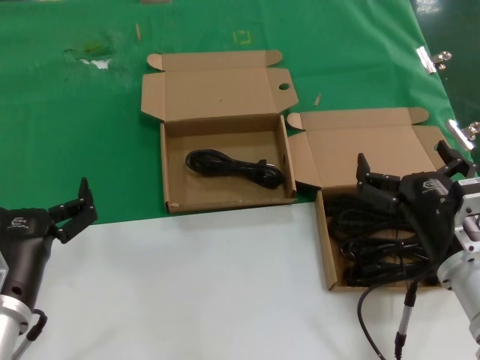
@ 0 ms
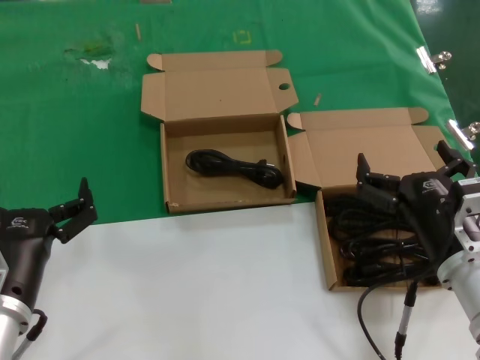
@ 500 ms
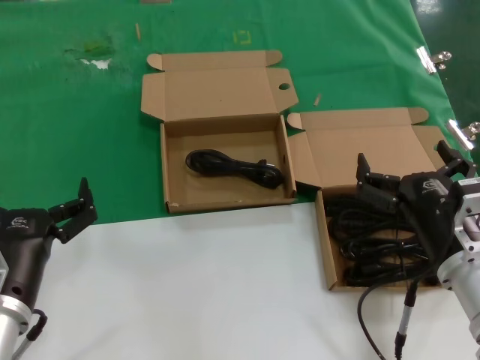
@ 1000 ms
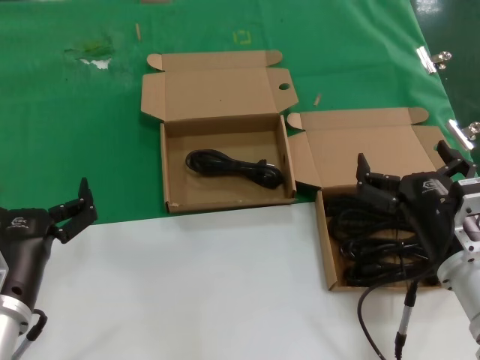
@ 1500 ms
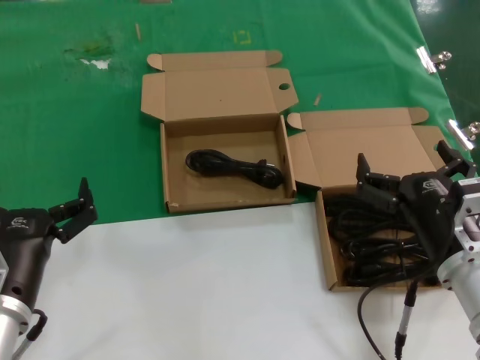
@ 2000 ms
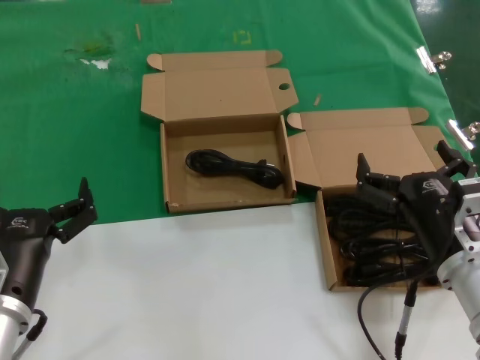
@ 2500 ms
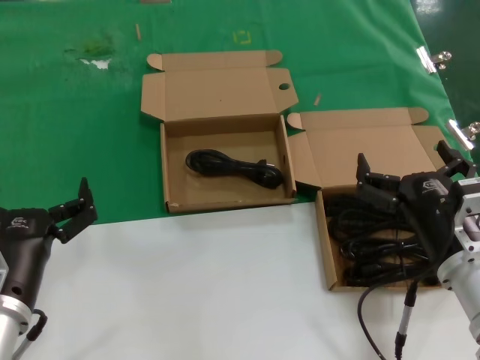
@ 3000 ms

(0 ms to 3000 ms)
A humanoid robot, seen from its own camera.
Task of the whole recording: take the parts from the box containing them and put them into an empty box.
0 ms - 3000 ms: Neither hand changes place.

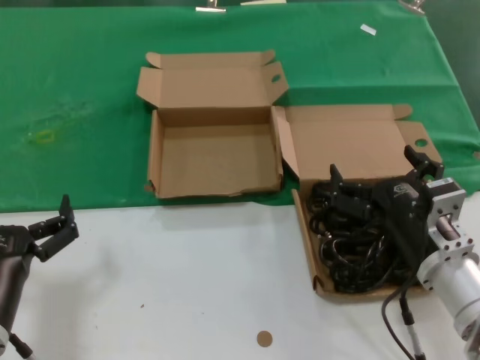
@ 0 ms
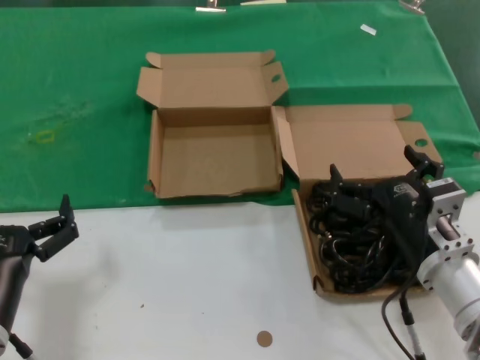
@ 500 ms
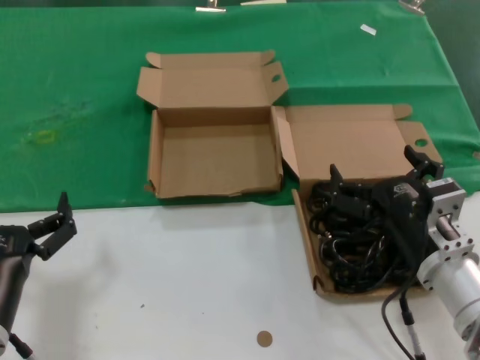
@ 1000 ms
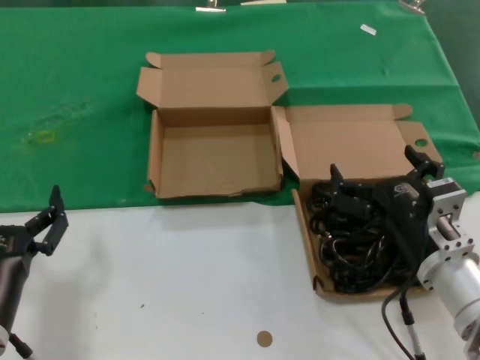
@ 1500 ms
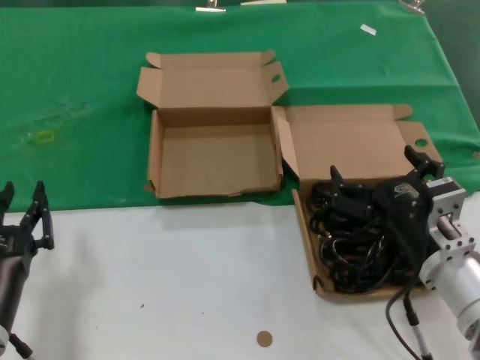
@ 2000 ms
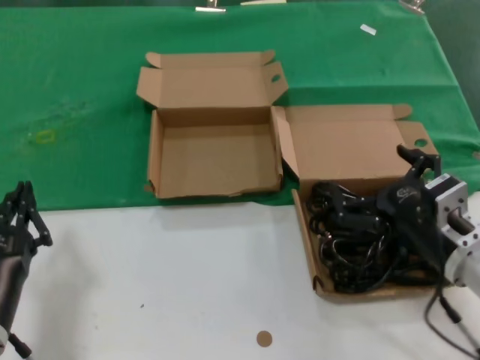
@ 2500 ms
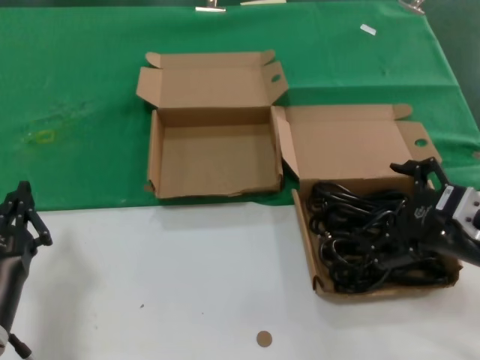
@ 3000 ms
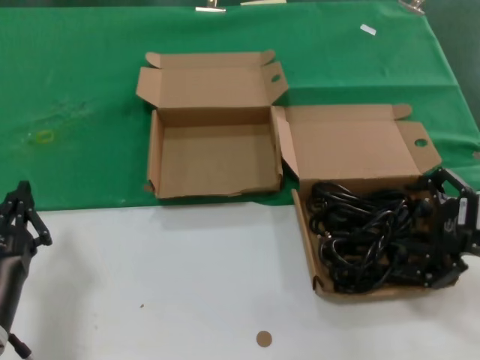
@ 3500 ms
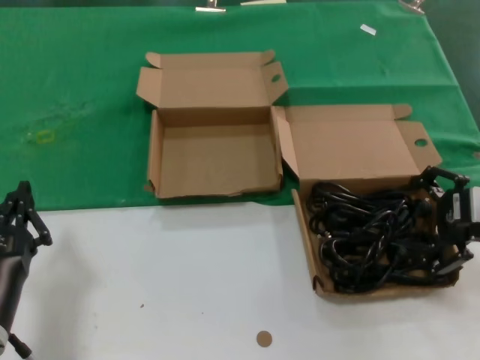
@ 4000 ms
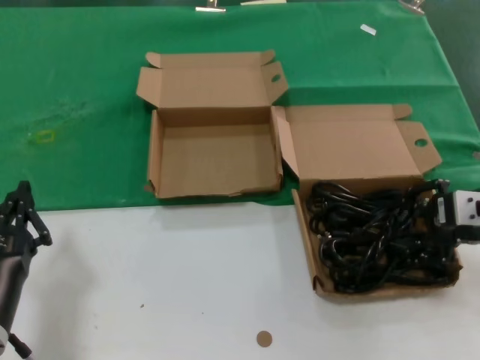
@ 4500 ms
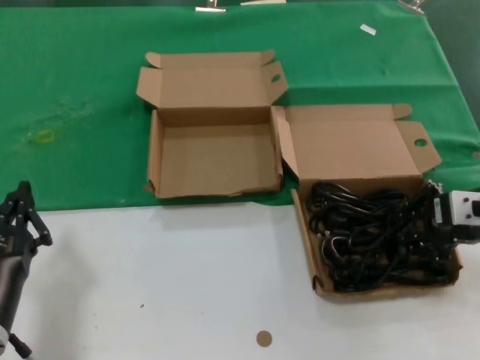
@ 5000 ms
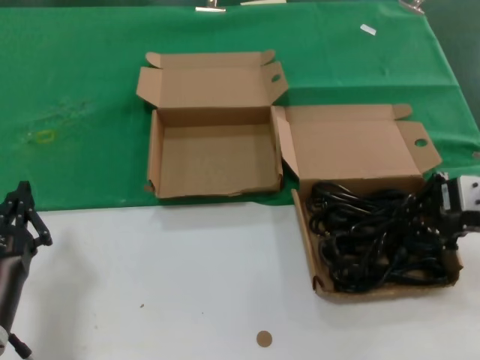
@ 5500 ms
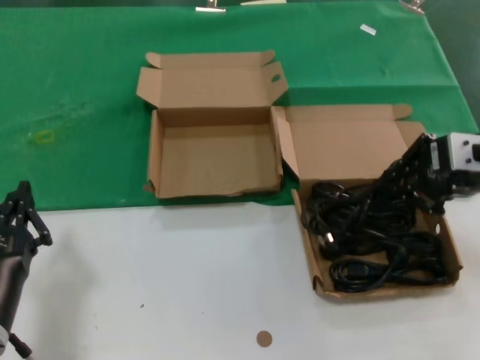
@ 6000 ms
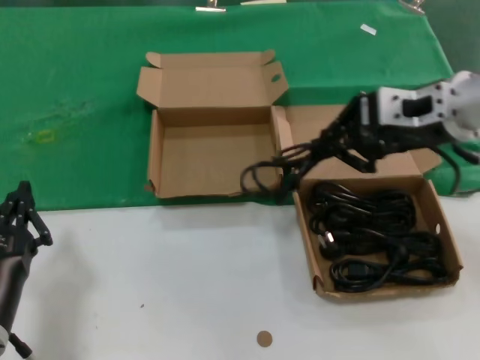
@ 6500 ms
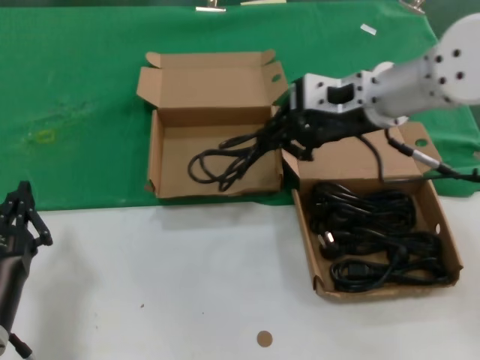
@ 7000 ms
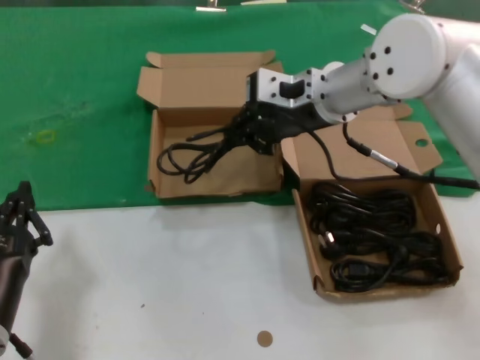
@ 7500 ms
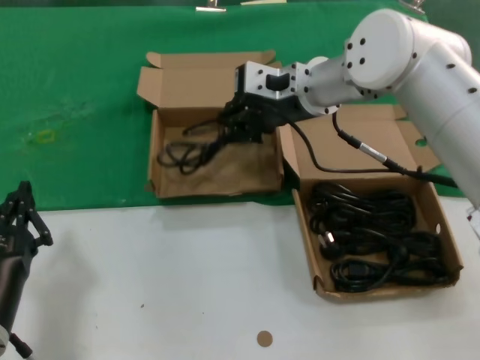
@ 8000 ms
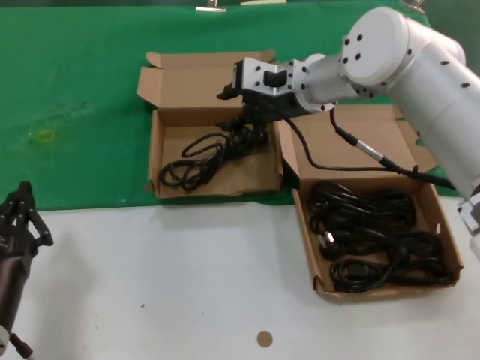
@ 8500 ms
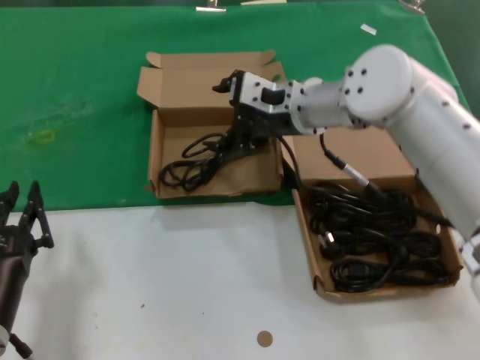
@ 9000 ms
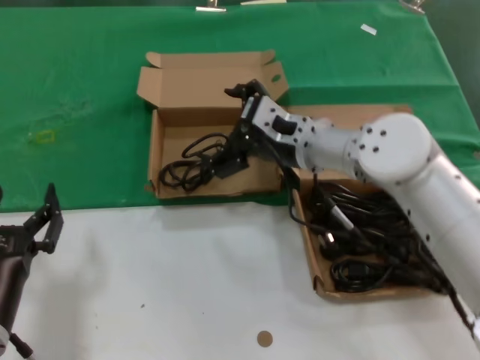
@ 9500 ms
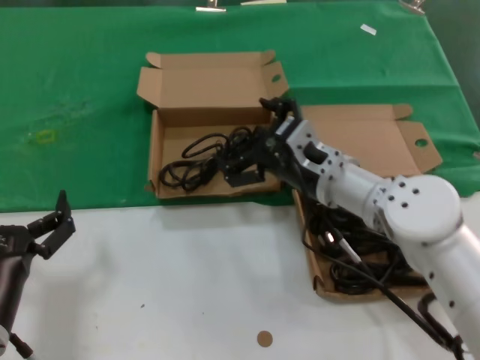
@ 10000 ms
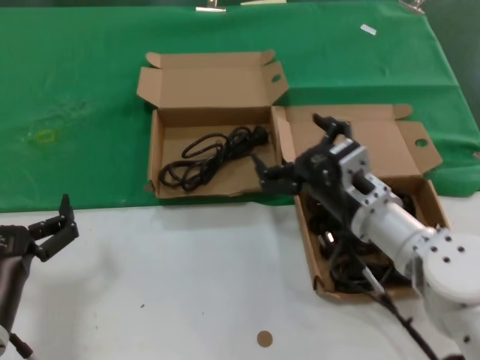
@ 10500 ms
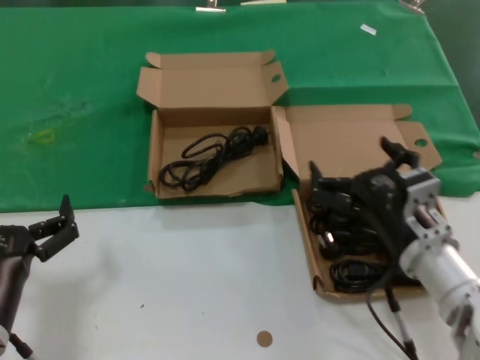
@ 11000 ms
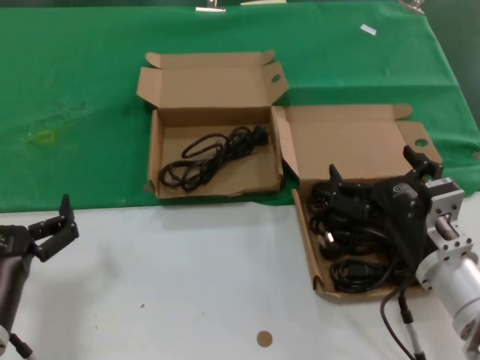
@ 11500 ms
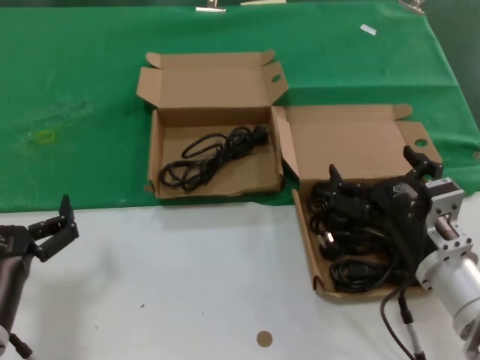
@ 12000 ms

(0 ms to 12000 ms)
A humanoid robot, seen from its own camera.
Task of the whole recording: take the parts from the box containing them and put them into an empty box.
Step, 0 ms - 4500 ms: Grasp the data cable.
Step, 5000 ms - 8000 ms: Place the data cable in the another box.
0 ms - 2000 ms: Both hands stay put.
2000 ms - 4000 ms: The right hand travels upward and to the right by about 20 cm.
4000 ms - 6000 ms: The right hand shifts roughly 5 cm upward.
6000 ms - 8000 ms: The right hand is displaced to the left and forward by roughly 25 cm.
8000 ms - 10000 ms: The right hand travels downward and backward by some 15 cm.
10000 ms - 12000 ms: The right hand travels backward, to the right and downward by approximately 15 cm.

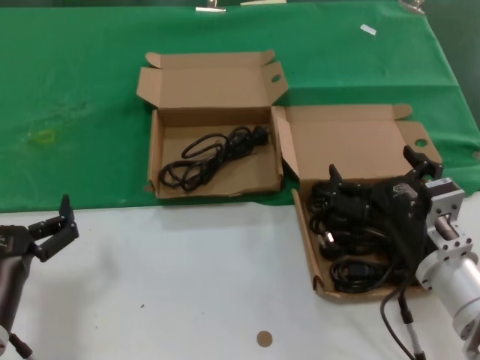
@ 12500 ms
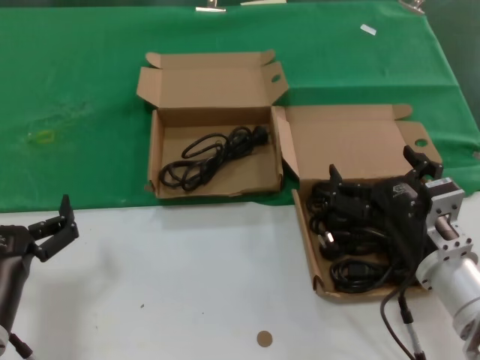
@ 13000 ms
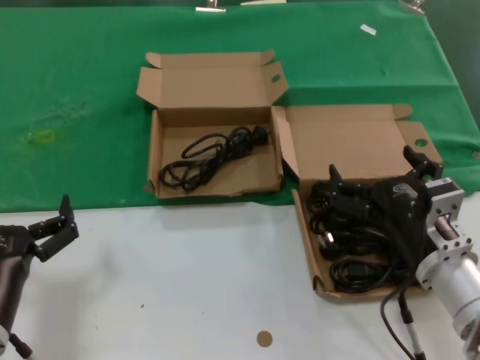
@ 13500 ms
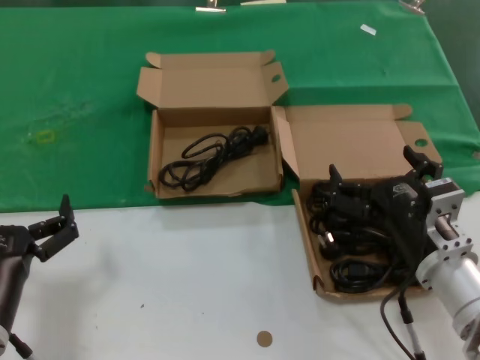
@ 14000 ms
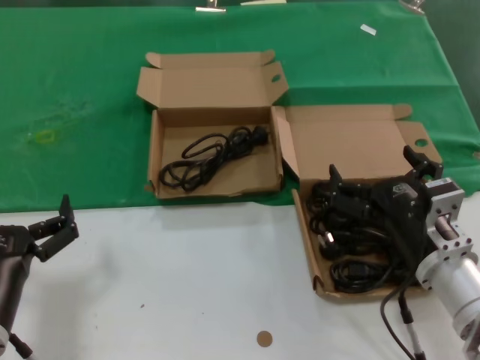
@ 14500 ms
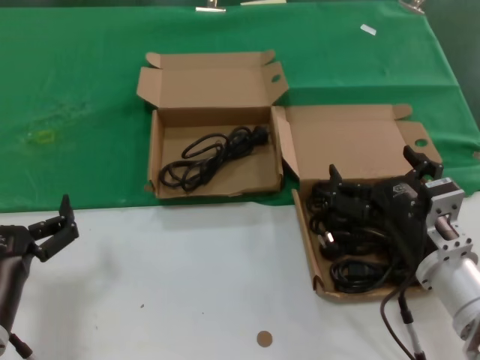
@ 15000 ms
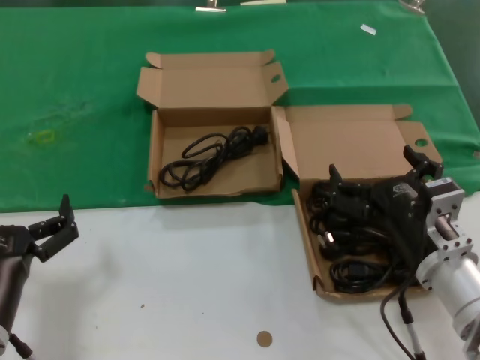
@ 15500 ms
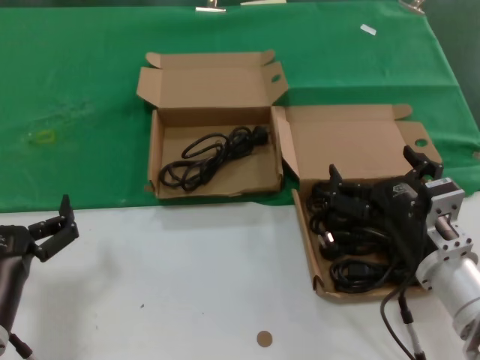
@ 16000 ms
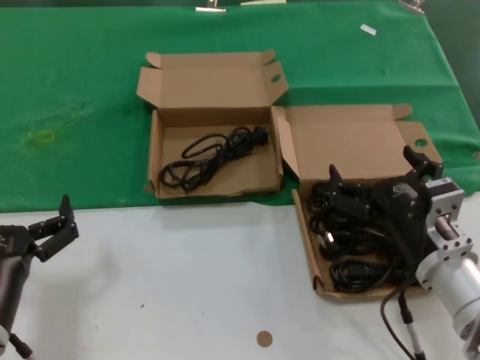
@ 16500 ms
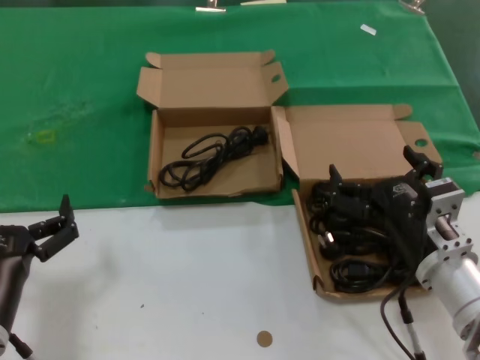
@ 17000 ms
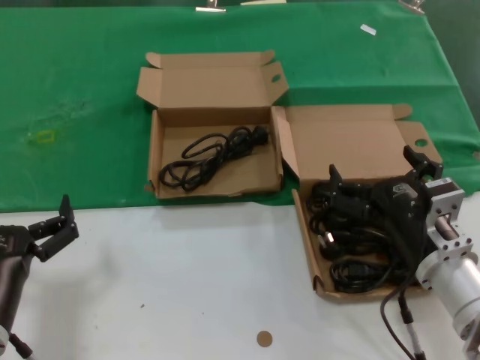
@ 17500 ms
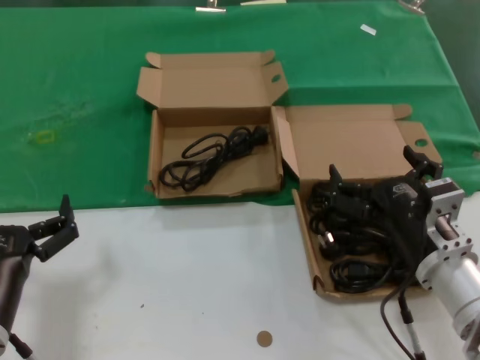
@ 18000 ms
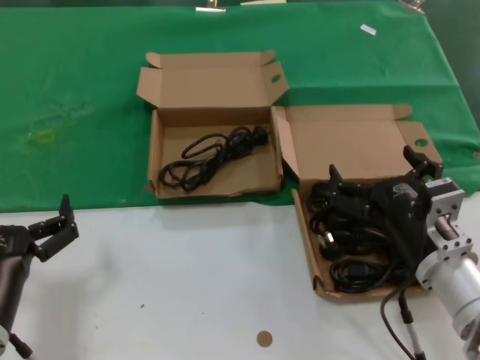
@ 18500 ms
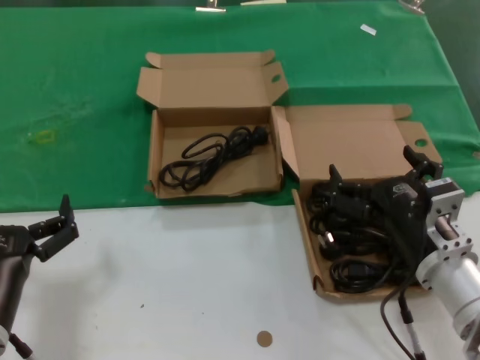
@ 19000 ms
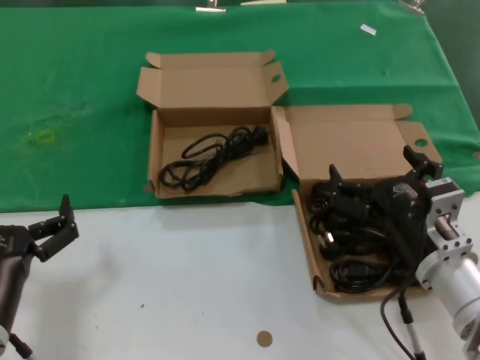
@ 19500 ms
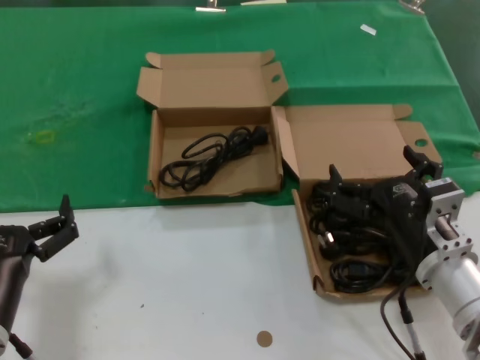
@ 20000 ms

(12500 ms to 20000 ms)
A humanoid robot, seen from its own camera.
Task of the whole recording: take the parts from the box containing them and put them into an empty box.
12500 ms - 20000 ms: Neither hand changes place.
